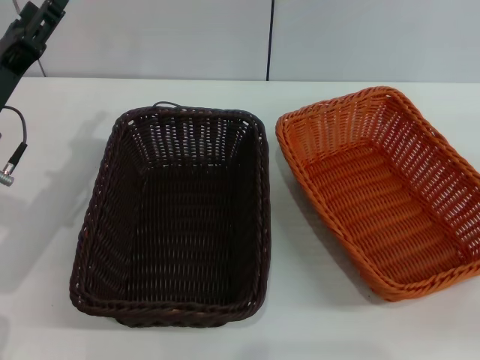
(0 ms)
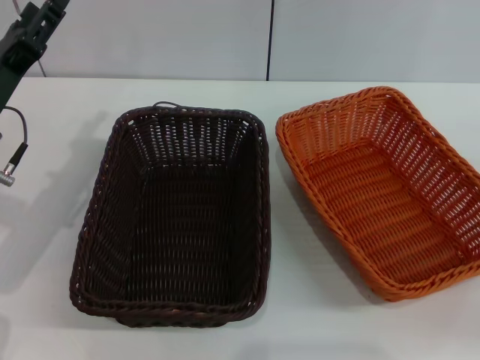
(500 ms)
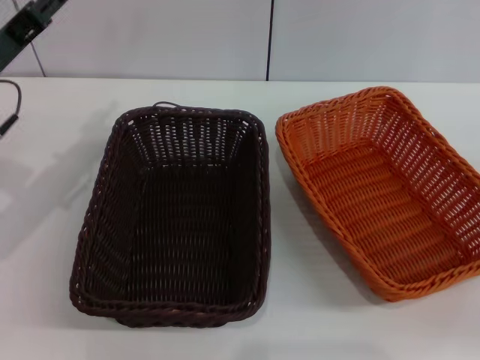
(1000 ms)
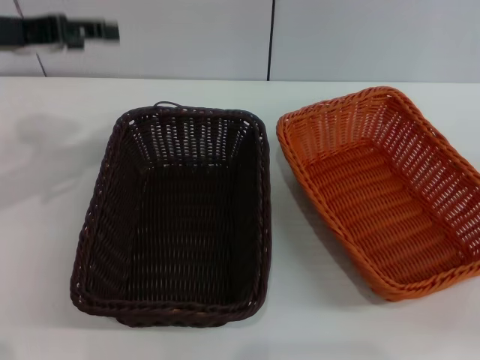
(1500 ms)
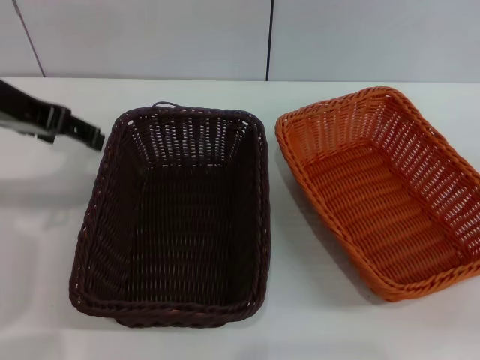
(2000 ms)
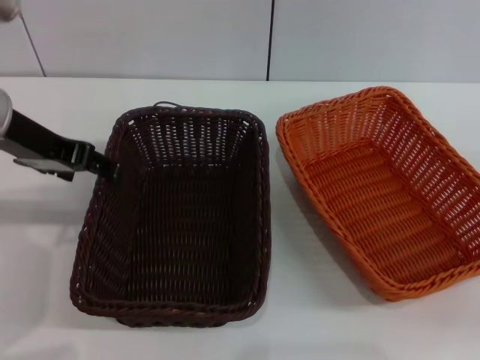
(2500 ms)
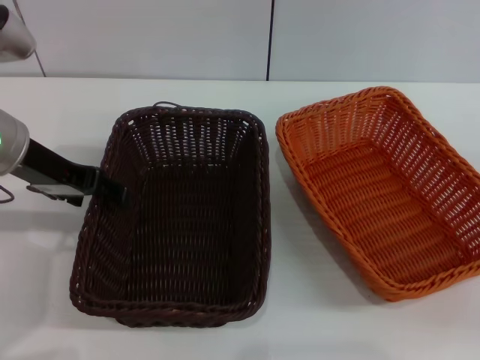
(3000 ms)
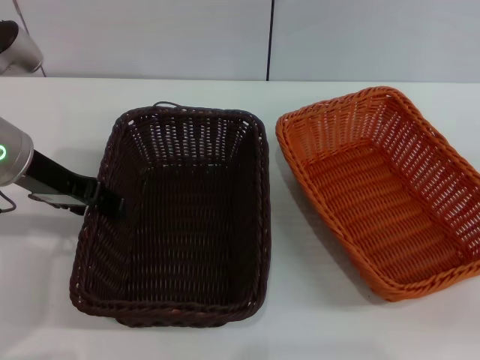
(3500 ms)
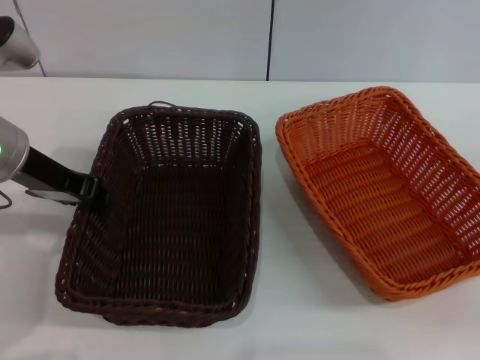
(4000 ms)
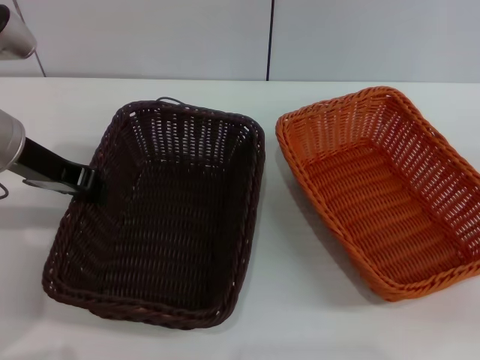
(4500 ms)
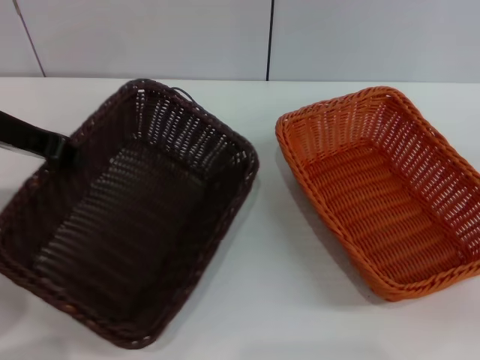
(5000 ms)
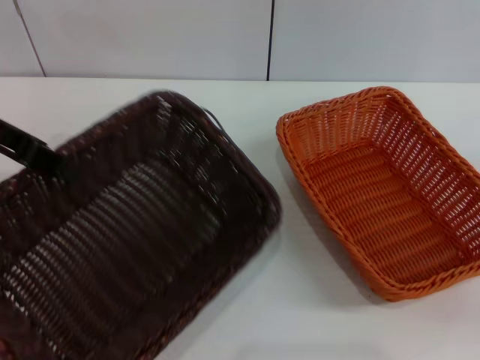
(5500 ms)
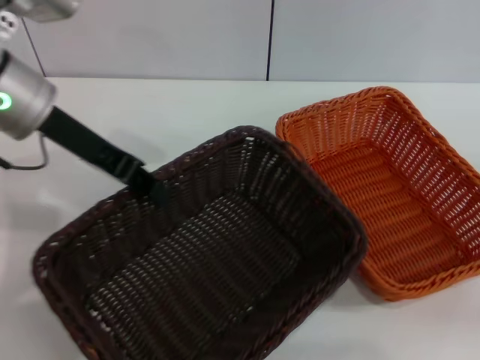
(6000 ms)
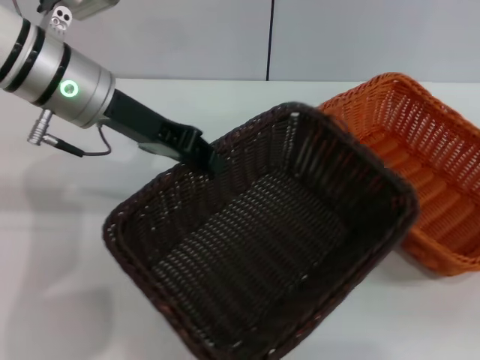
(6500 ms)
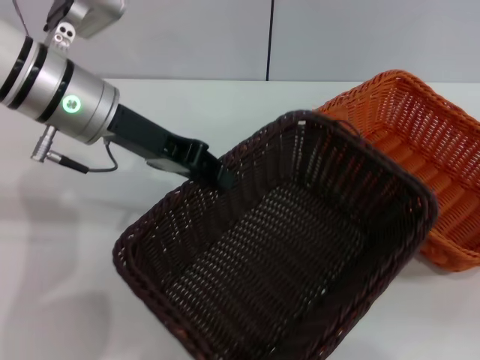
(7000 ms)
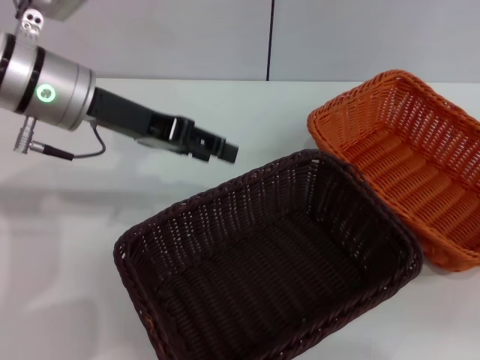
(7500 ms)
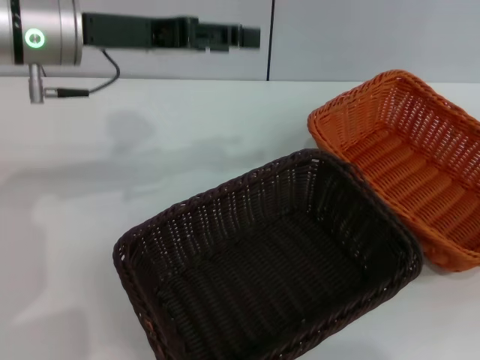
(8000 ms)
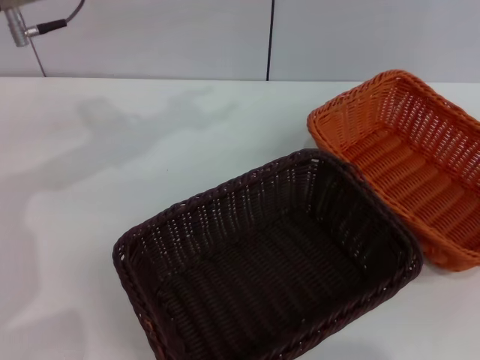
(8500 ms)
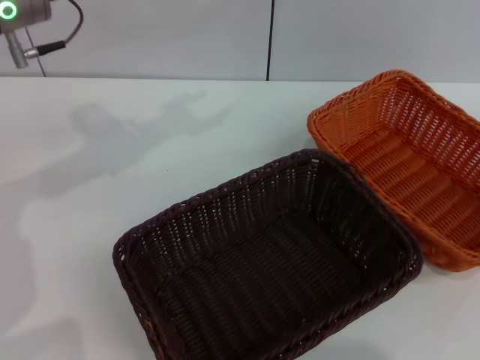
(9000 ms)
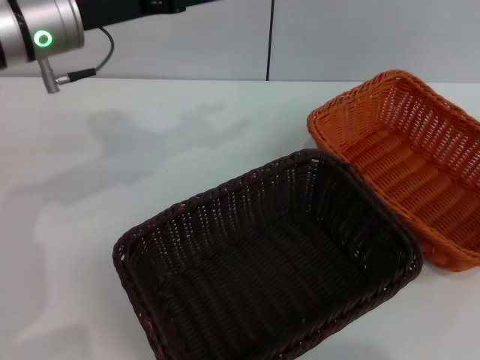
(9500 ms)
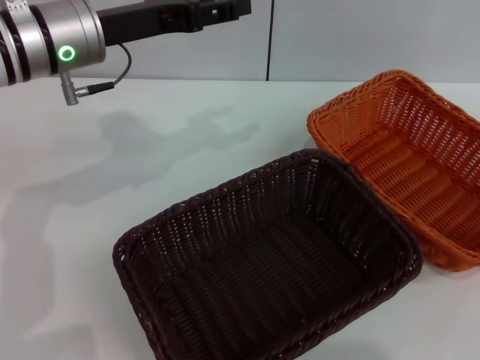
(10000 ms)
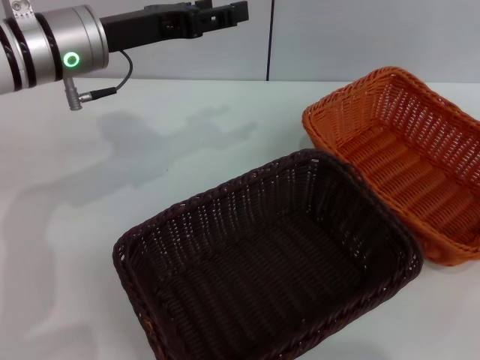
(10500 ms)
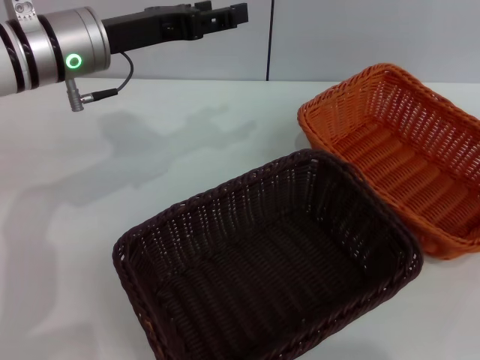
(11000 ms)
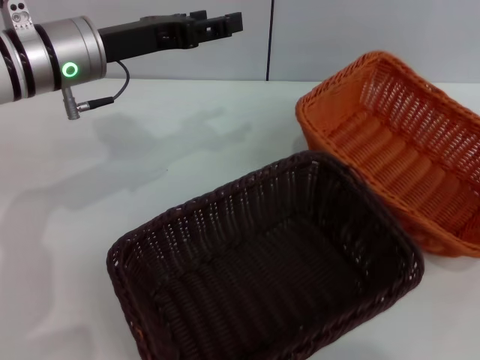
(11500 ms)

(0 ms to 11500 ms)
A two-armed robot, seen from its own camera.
Step, 0 ms - 5000 ms: Pick up the dark basket with the left gripper.
Step, 5500 ms - 7000 ms: Place the dark basket in the center of view with the left gripper.
Step, 7500 ms - 11000 ms: Pick up the light basket with the right gripper.
0 ms - 2000 ms: The left gripper moves upward, approximately 15 cm.
2000 ms - 4000 ms: The left gripper goes roughly 5 cm downward, and closes its fingers.
4000 ms - 6000 ms: The left gripper closes up.
6000 ms - 7500 ms: The left gripper opens up.
7500 ms - 9500 ms: The right gripper moves upward, approximately 20 cm. The left gripper opens.
9500 ms - 11500 ms: The right gripper travels downward and to the left by approximately 10 cm, and closes.

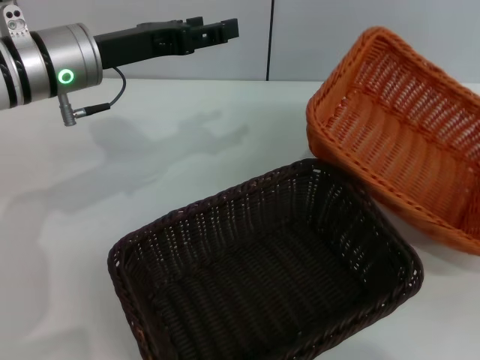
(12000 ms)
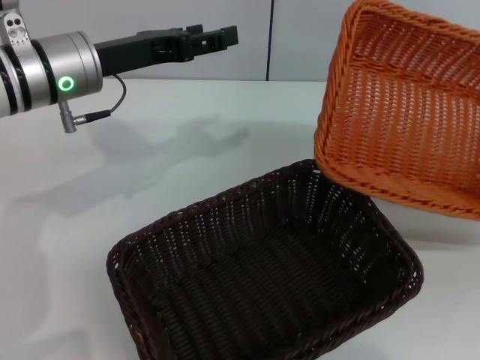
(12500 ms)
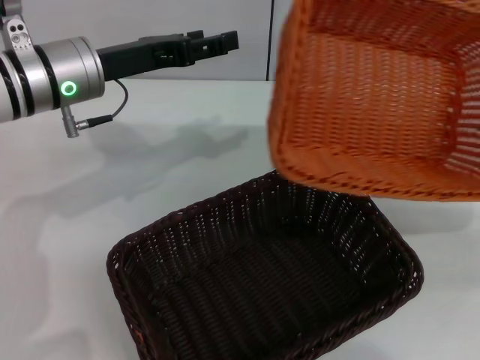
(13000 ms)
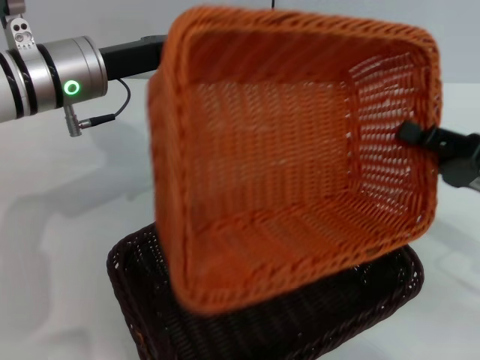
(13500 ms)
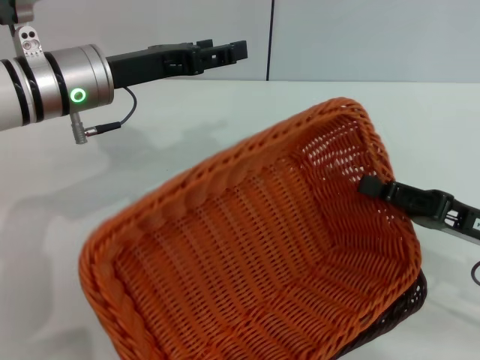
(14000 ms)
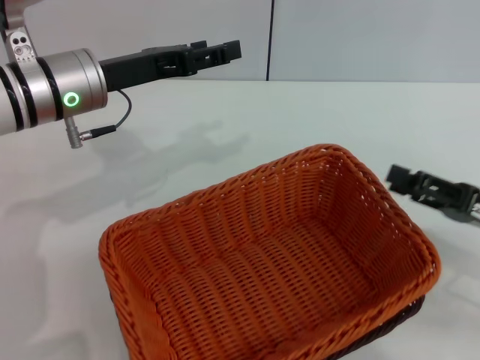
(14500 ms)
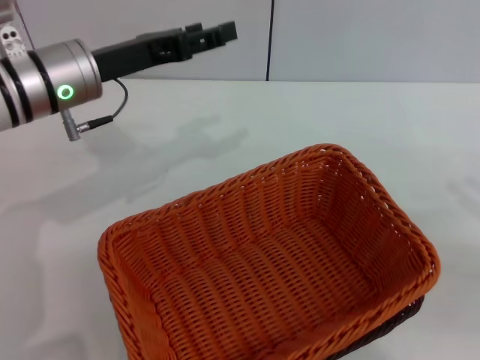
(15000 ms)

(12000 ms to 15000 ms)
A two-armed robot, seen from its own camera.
Step, 12000 ms - 14000 ms: Place the light basket on the dark basket with the right gripper.
12000 ms - 13500 ms: The right gripper is displaced to the left by some 10 cm.
13500 ms - 15000 ms: The right gripper shifts approximately 10 cm to the right, and opens up.
